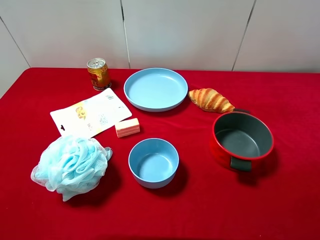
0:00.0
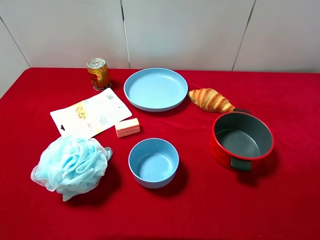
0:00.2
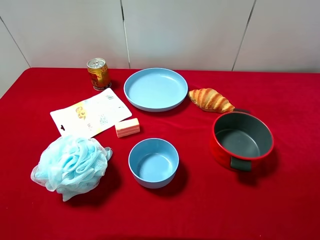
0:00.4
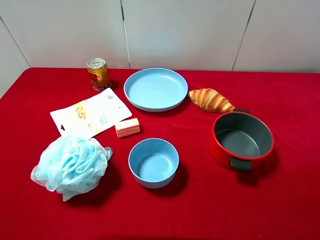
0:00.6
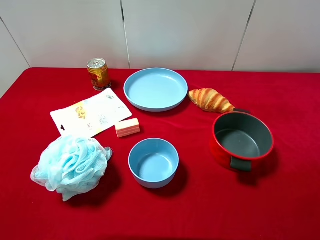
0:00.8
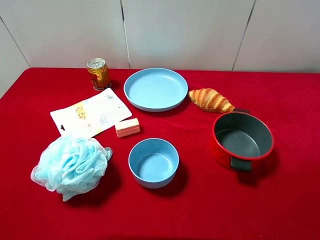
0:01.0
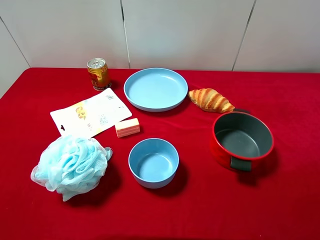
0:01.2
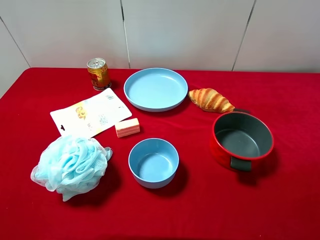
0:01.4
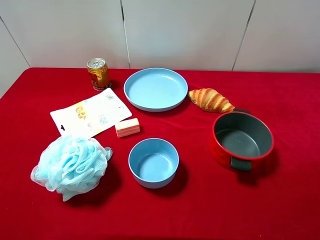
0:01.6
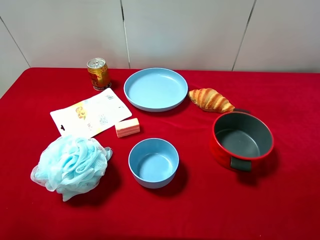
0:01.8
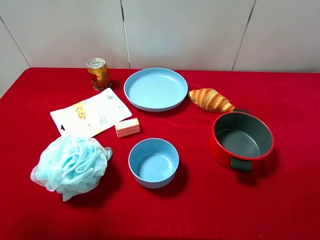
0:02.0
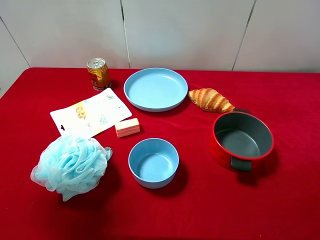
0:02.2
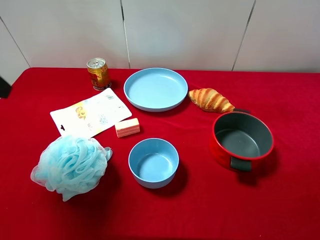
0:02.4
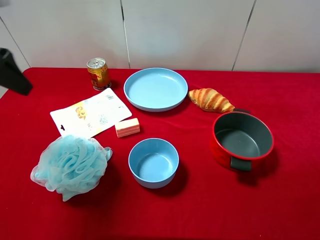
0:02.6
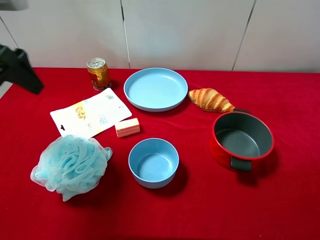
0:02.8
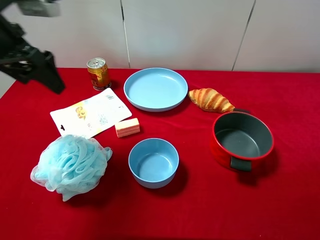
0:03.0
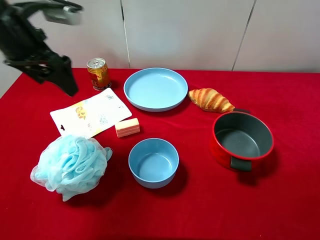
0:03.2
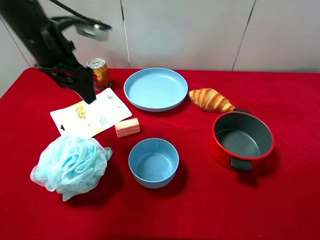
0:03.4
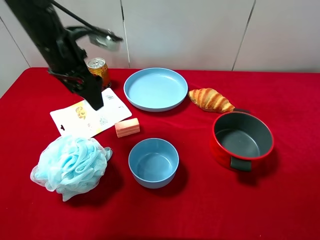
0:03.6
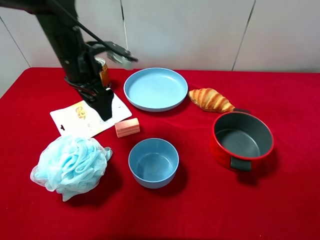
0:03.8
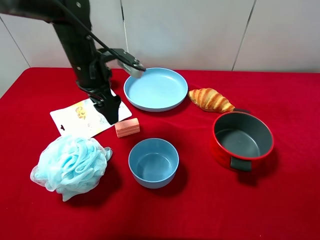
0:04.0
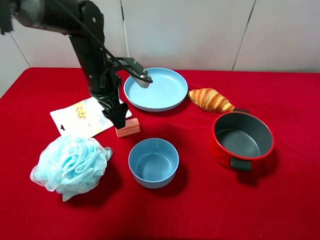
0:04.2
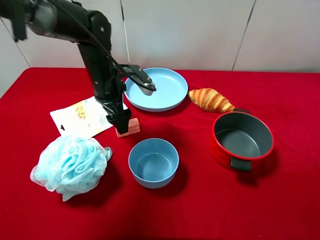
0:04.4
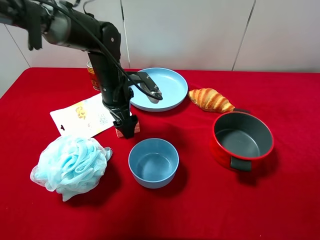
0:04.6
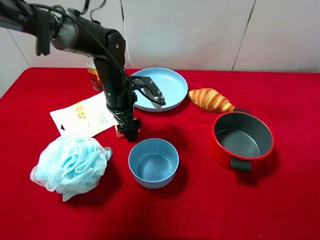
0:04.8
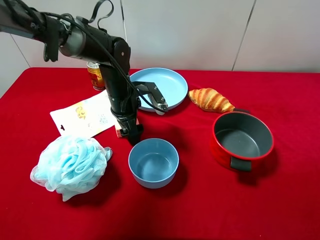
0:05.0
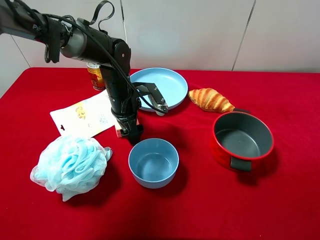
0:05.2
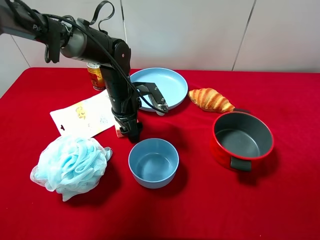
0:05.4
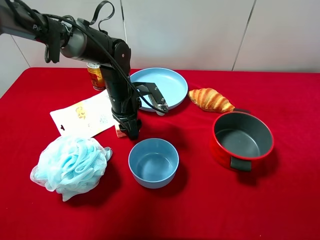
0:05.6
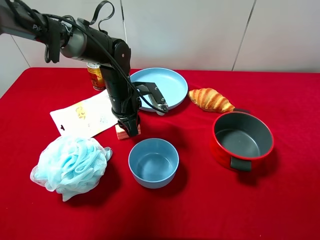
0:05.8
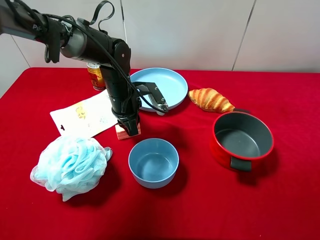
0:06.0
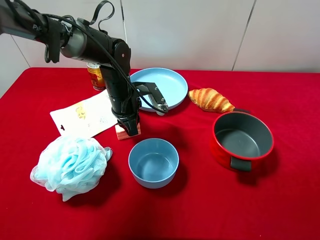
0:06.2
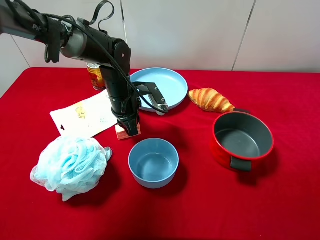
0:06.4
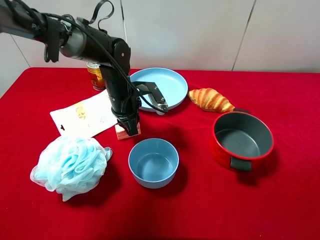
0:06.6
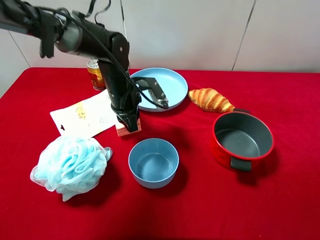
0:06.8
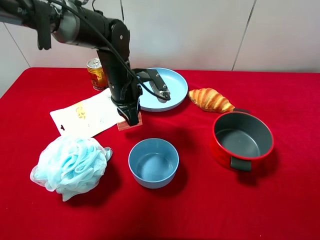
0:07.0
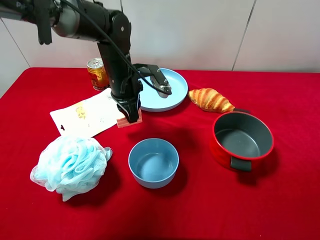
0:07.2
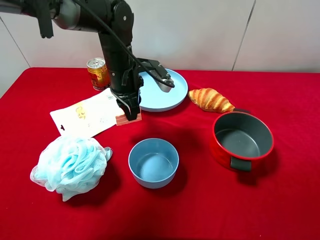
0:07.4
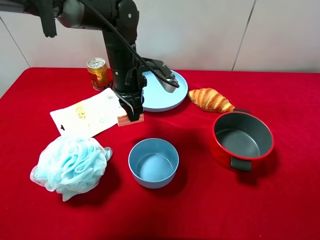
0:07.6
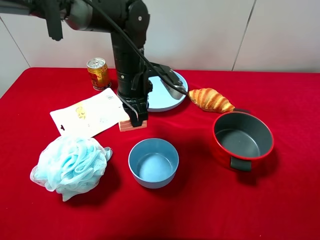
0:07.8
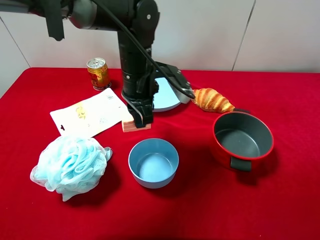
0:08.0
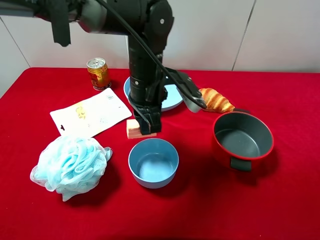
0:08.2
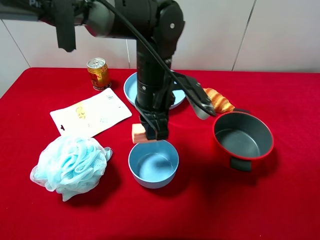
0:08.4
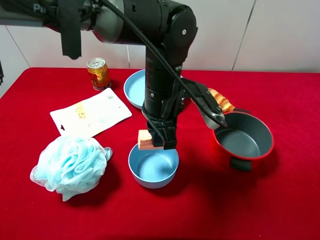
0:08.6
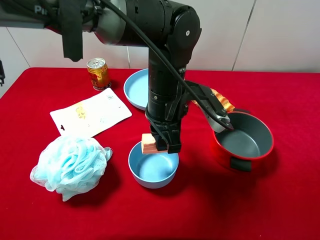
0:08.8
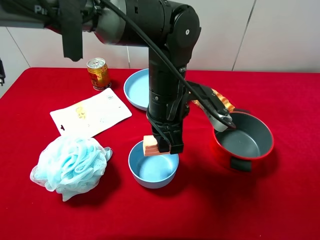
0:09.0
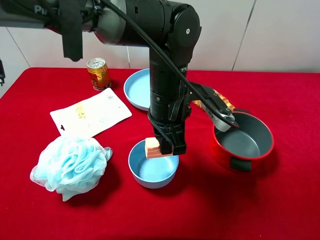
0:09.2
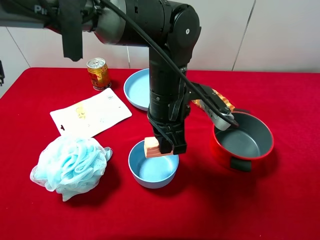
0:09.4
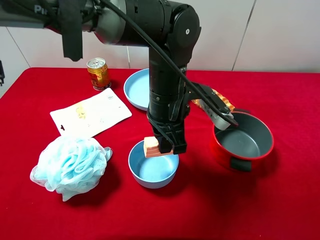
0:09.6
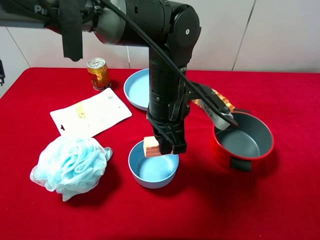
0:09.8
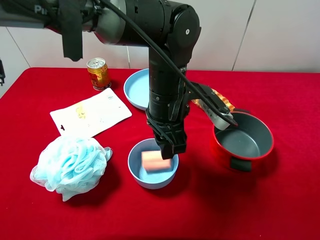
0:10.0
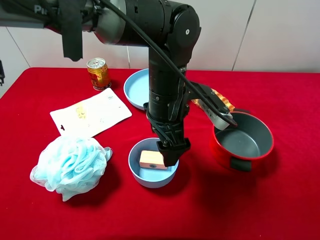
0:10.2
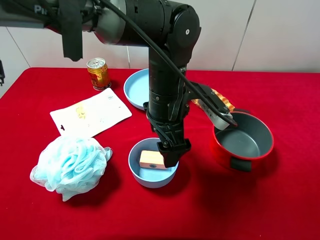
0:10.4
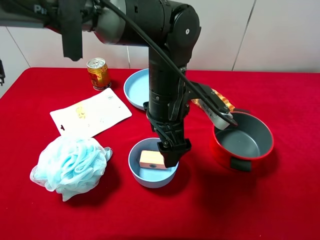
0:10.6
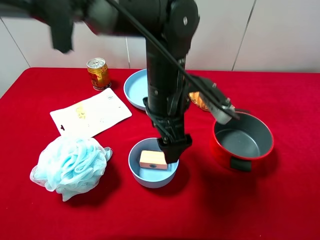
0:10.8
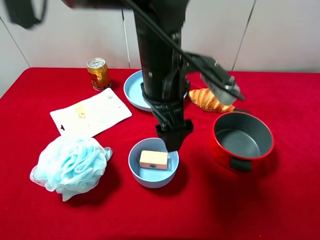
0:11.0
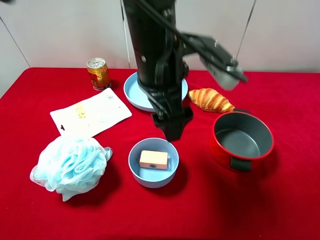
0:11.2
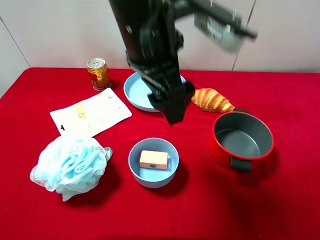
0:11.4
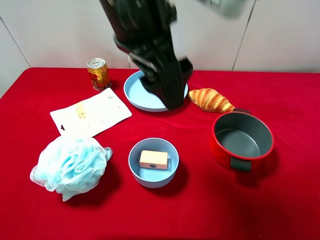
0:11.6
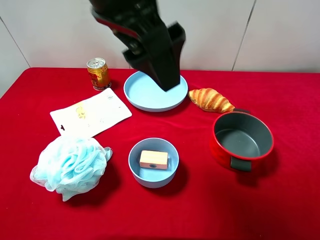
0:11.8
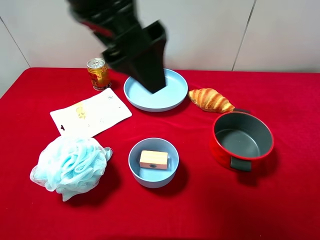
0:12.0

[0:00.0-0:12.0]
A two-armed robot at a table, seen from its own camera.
Task of the whole recording: pick up an item with a gripper and place it in a random container on the desktop.
0:01.6 to 0:03.0: The left gripper heads forward, covering some 25 cm.
0:03.0 to 0:04.4: The left gripper travels downward, to the right and forward by some 20 cm.
0:04.4 to 0:06.0: The left gripper closes its fingers.
0:06.0 to 0:07.6: The left gripper is displaced upward by approximately 5 cm.
0:07.6 to 0:09.0: The left gripper moves backward and to the right, about 15 cm.
0:09.0 to 0:10.4: The left gripper opens its fingers.
0:10.4 to 0:12.0: The left gripper moves upward and to the left, approximately 20 cm.

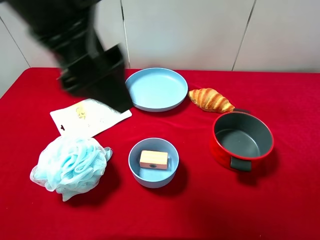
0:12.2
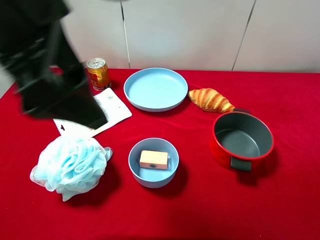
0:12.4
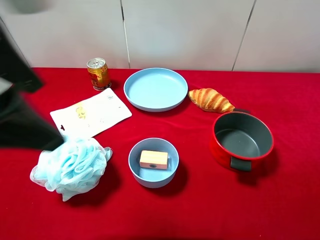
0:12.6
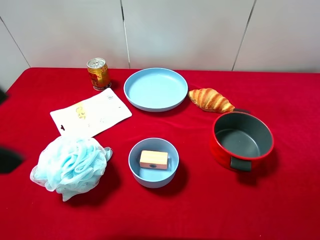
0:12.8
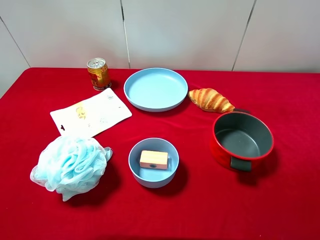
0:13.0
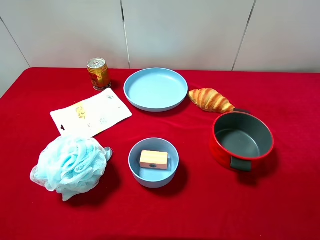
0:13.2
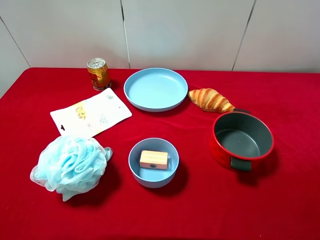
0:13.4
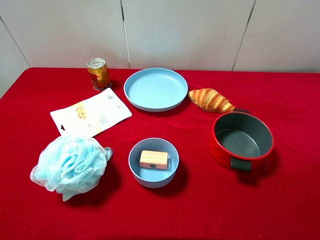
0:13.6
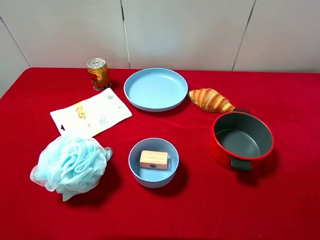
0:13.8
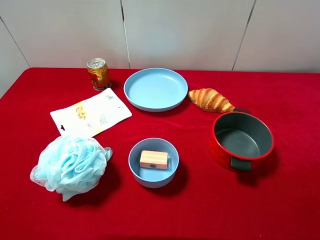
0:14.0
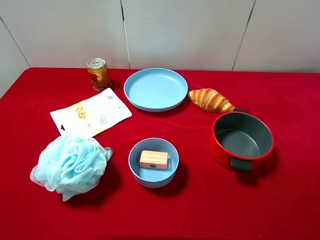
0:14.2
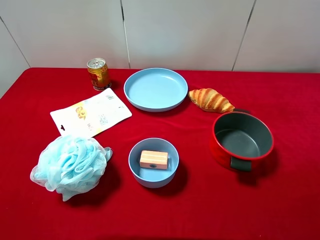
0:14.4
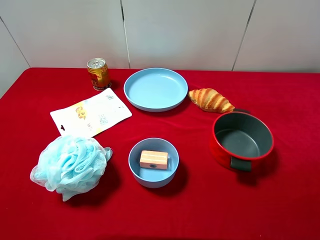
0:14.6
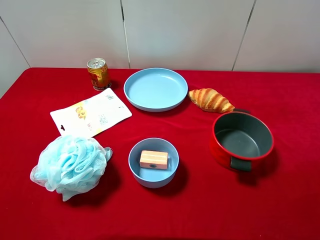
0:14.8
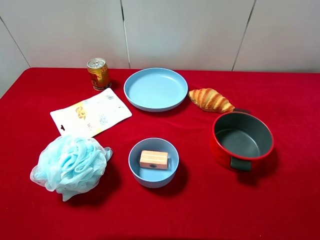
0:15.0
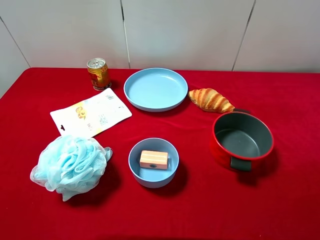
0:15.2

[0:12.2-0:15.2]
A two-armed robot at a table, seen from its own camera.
Task of the whole recording: pick up an item with a gripper and place it in a random container on the desktop.
0:12.2 to 0:13.8: The left gripper heads to the left, backward and downward, covering about 25 cm.

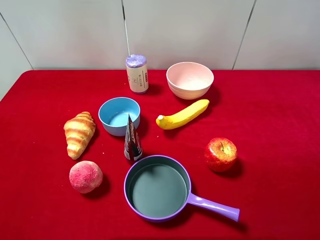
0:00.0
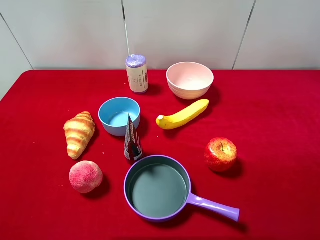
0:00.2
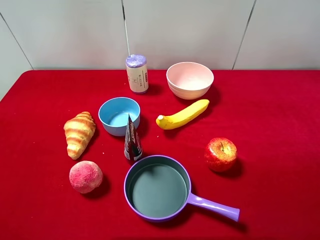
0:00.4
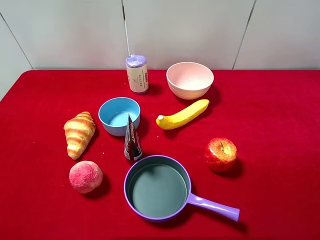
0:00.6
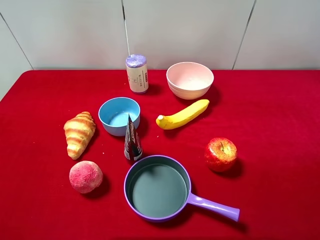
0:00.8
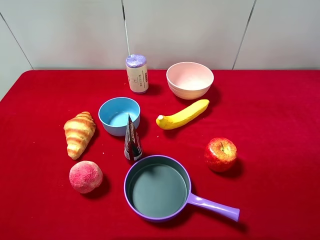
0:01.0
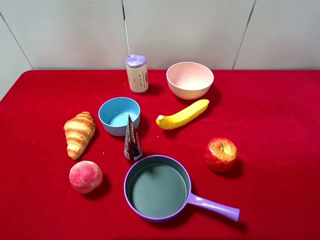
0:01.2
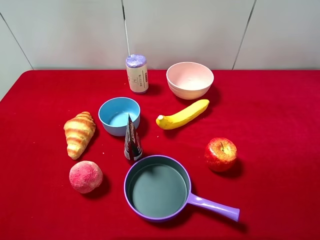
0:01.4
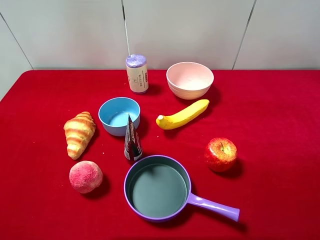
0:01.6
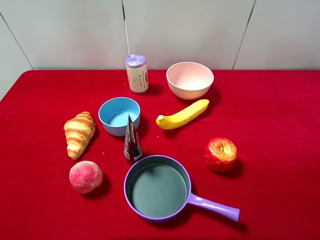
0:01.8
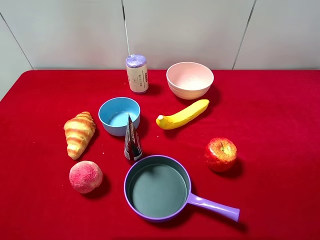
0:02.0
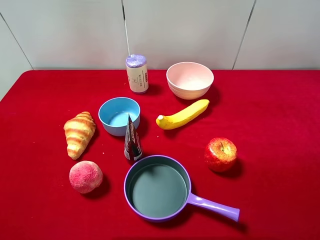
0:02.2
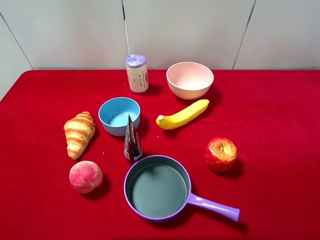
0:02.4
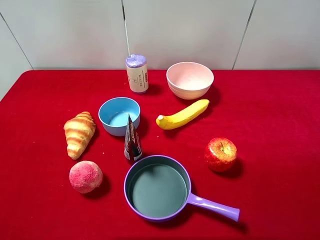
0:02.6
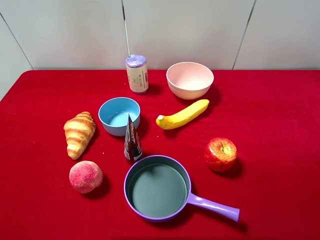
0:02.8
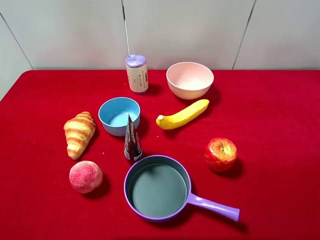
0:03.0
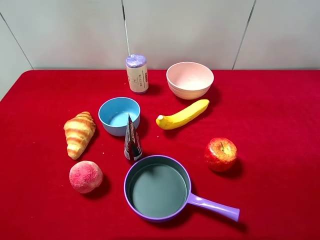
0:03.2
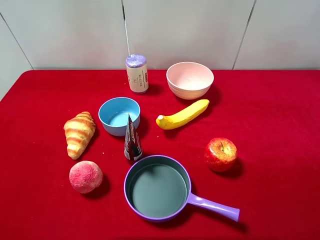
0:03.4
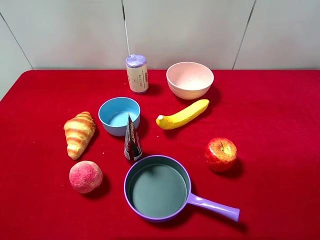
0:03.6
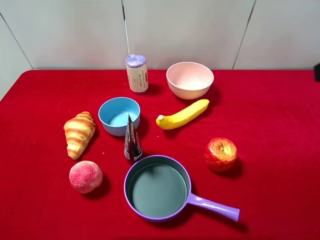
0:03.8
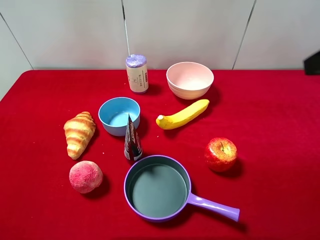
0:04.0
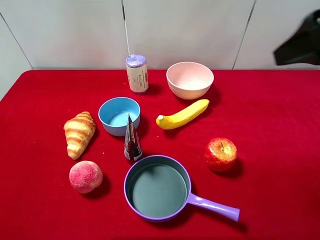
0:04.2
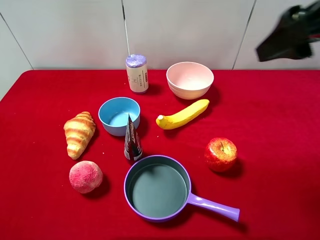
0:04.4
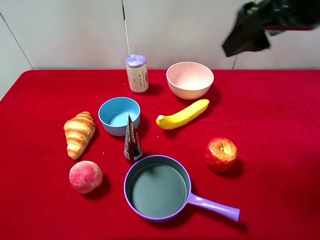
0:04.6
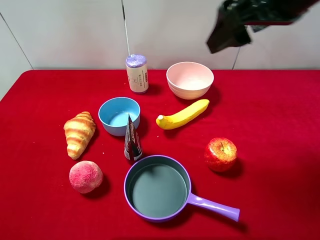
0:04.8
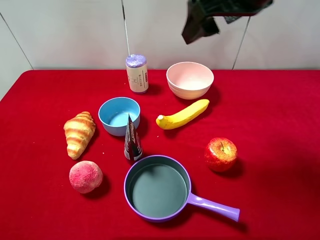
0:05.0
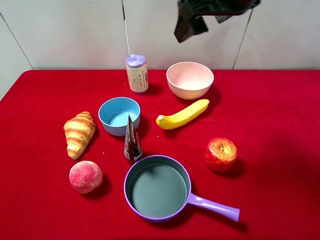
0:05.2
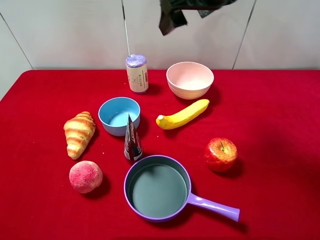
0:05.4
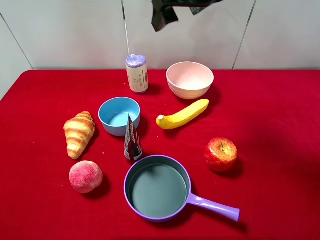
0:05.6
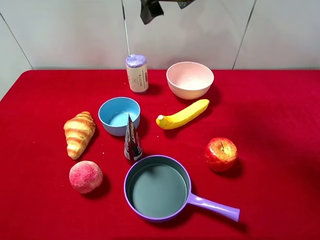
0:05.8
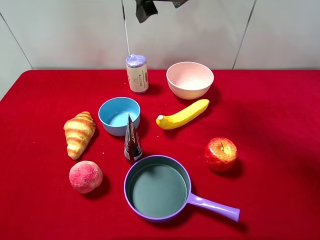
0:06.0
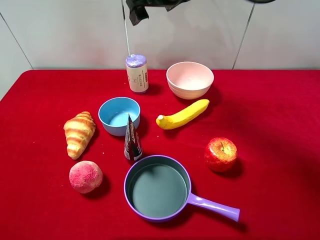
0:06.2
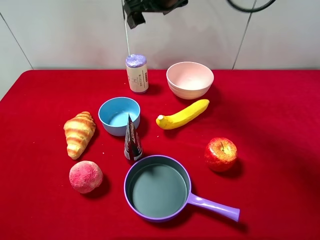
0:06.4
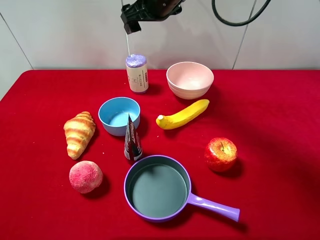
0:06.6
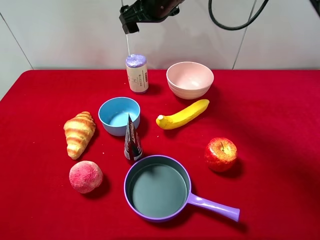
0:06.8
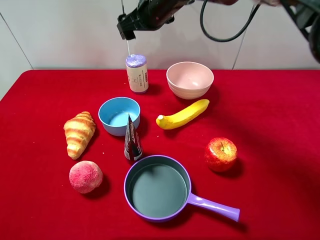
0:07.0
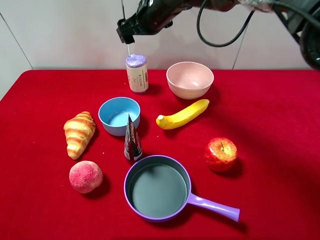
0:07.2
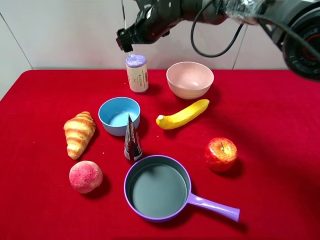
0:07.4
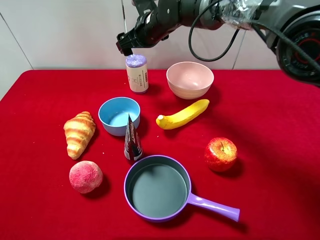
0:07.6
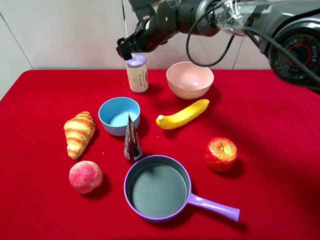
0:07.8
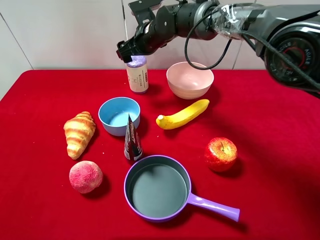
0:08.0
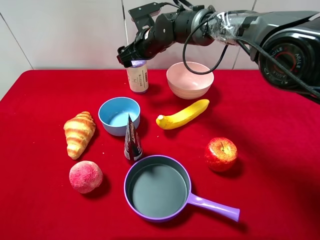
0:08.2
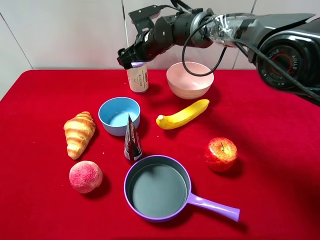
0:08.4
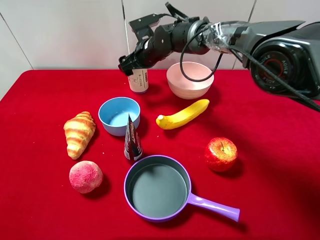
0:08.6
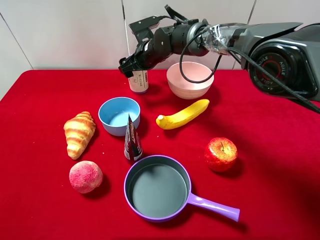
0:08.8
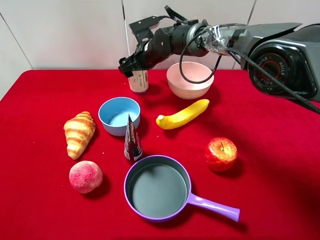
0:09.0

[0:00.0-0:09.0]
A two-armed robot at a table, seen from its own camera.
Task of the whole recording: pick up an item with a gripper and place it in a random container on the desktop.
0:00.0 to 0:01.6: Both grippers stay about where they are.
0:03.0 to 0:04.4: The right gripper travels forward and to the left by some 20 cm.
0:04.4 to 0:06.0: The right gripper shifts approximately 25 cm forward and to the left.
0:06.0 to 0:07.6: The right gripper is displaced downward and forward by roughly 15 cm.
0:07.6 to 0:09.0: The right gripper is displaced downward by roughly 5 cm.
